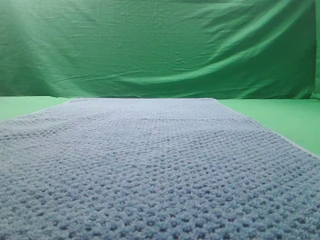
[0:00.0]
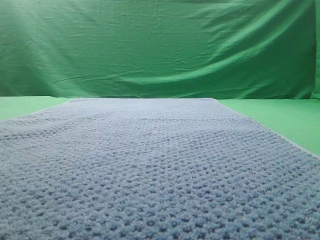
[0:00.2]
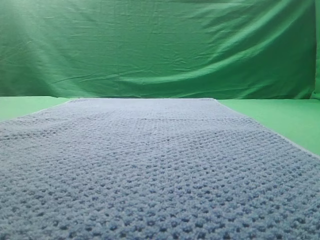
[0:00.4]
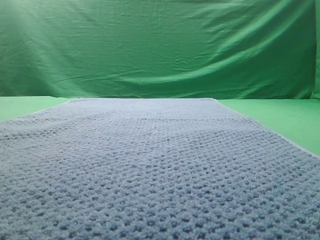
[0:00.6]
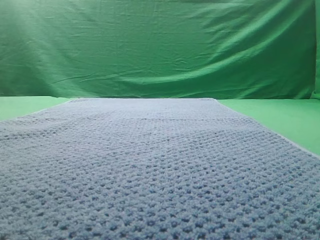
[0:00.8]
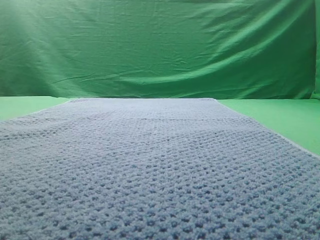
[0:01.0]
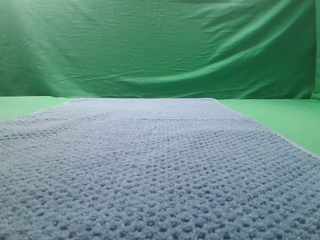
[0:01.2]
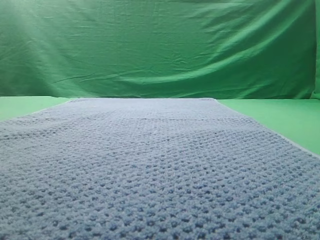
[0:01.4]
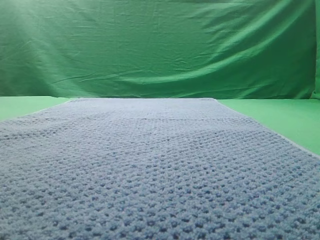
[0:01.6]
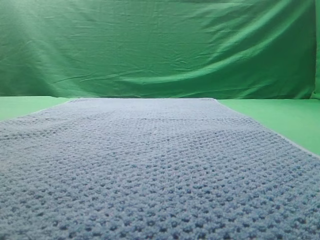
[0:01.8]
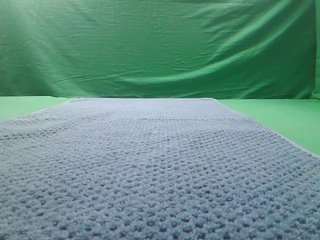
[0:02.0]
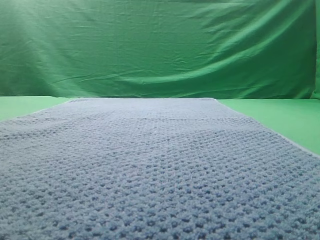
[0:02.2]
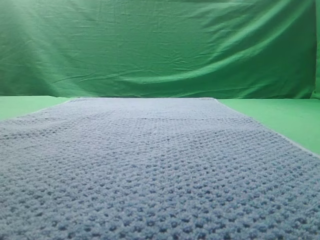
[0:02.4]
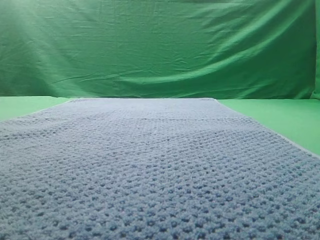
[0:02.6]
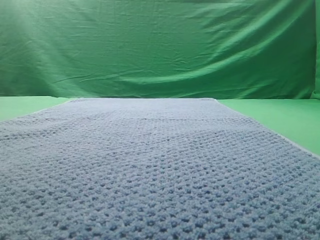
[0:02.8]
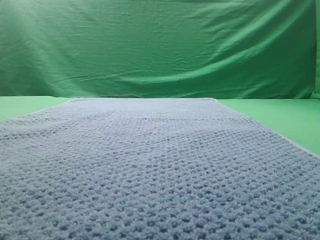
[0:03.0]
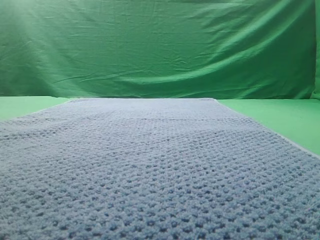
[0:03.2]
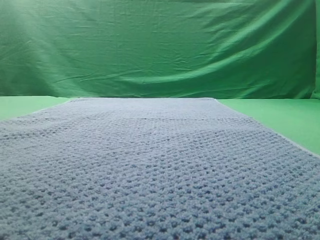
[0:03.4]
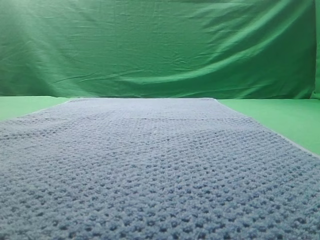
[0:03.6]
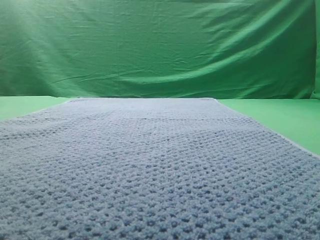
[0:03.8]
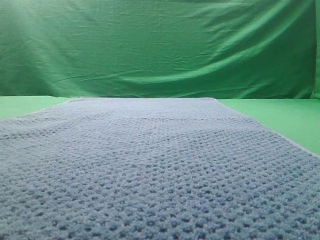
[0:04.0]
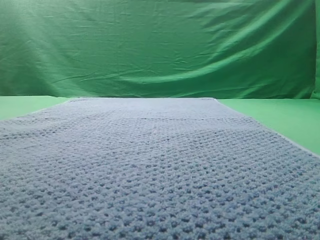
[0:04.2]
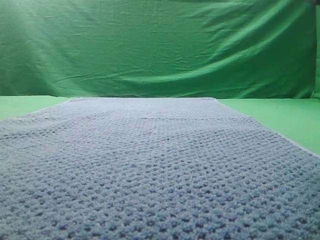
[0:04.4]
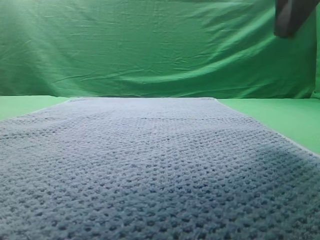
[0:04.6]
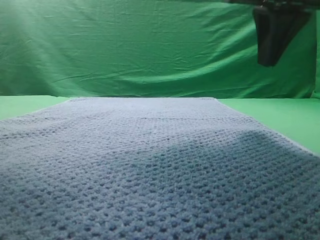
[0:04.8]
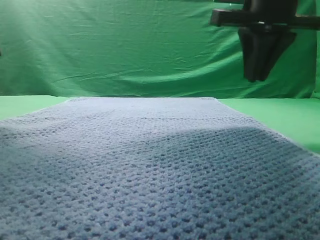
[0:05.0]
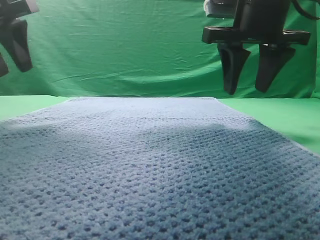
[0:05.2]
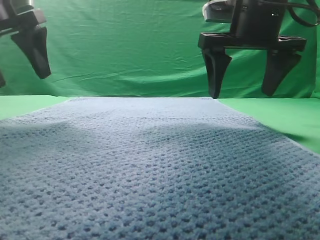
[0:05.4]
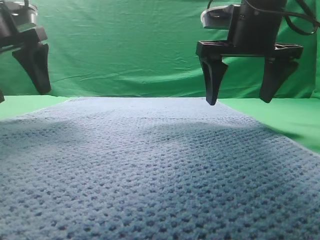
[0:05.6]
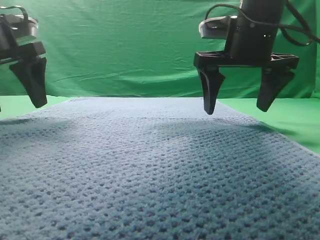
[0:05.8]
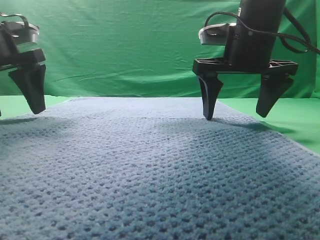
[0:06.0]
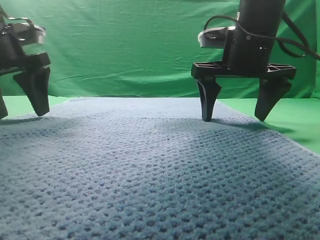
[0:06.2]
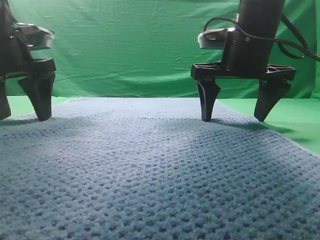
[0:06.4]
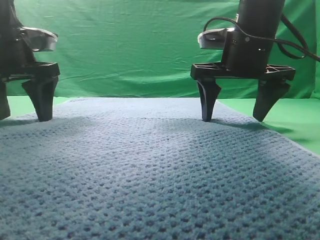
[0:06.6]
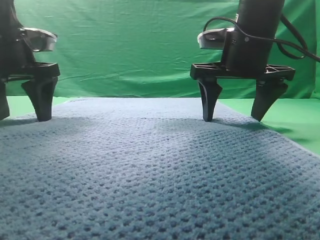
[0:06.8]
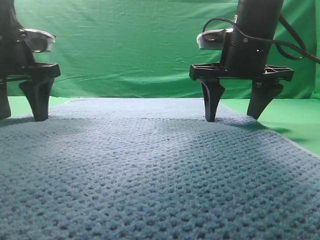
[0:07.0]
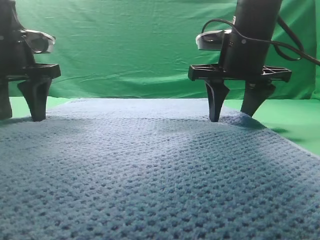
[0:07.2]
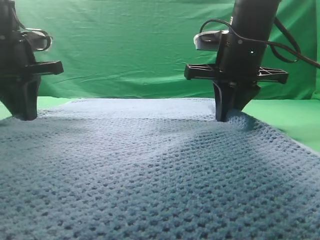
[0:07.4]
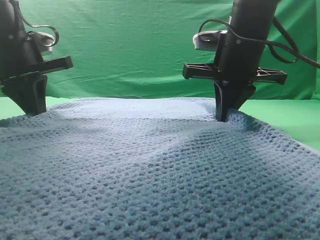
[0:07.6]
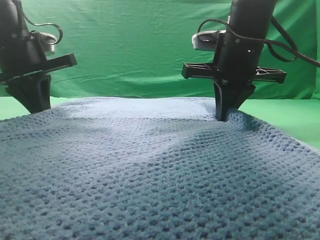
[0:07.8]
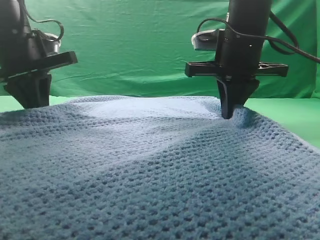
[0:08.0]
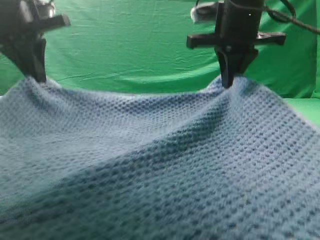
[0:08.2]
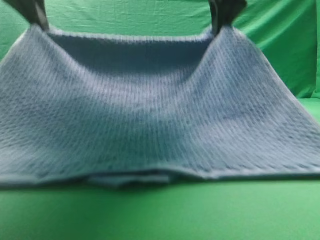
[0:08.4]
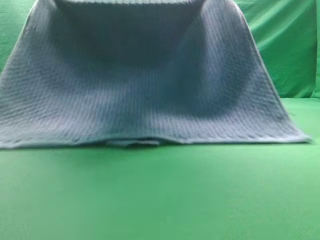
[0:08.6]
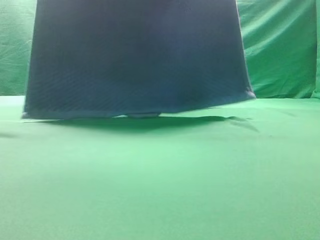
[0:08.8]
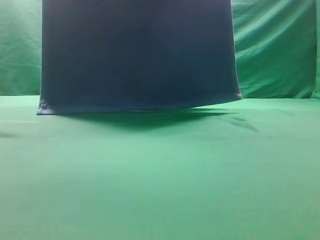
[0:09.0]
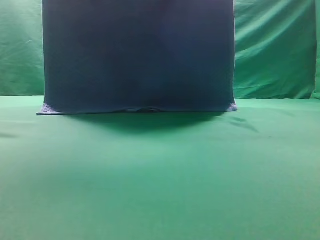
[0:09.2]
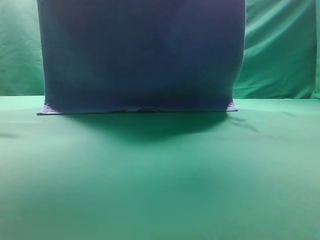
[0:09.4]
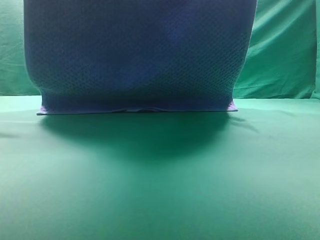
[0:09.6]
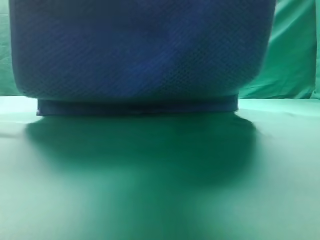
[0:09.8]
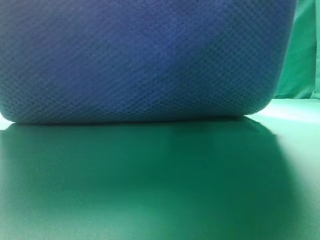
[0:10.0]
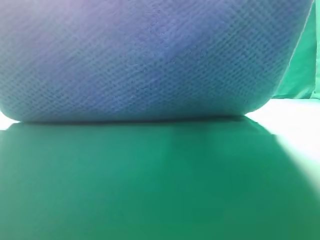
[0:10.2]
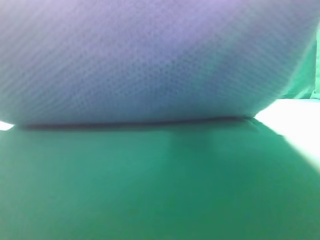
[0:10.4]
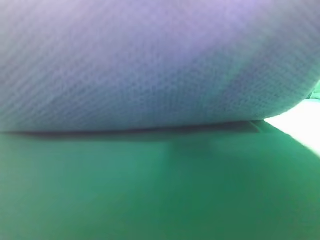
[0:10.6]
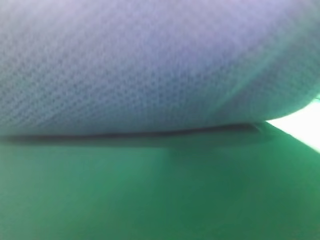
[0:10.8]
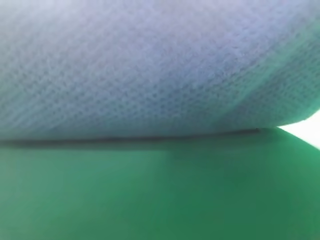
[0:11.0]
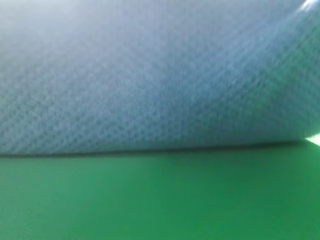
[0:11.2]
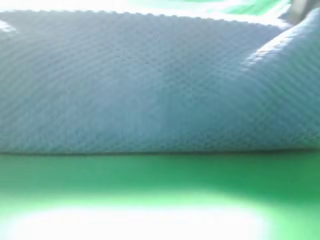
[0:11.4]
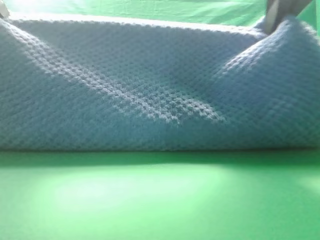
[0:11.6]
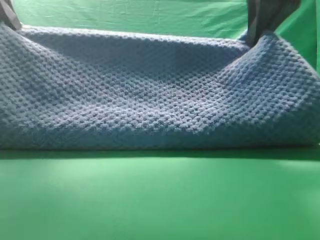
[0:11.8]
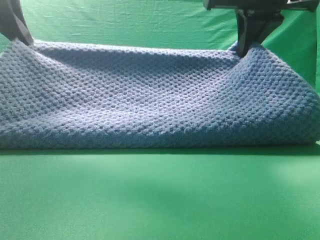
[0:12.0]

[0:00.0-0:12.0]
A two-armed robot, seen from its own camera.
Task of the whole recording: fold the towel on the table twice.
Step, 0:00.0 to 0:08.8: pick up the towel with two arm.

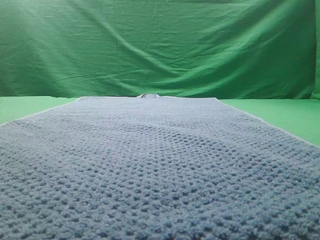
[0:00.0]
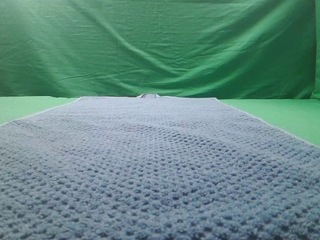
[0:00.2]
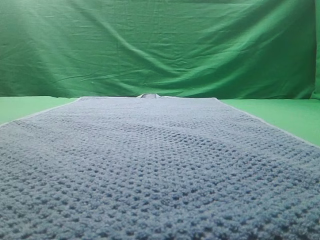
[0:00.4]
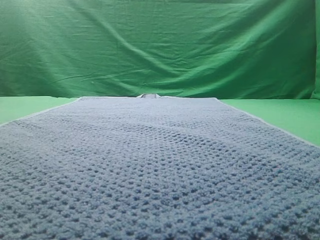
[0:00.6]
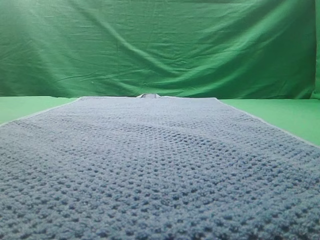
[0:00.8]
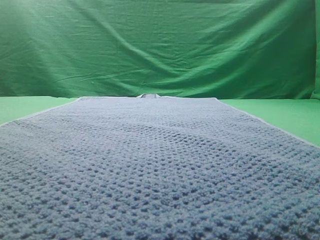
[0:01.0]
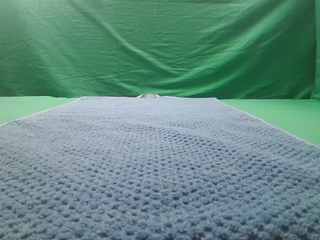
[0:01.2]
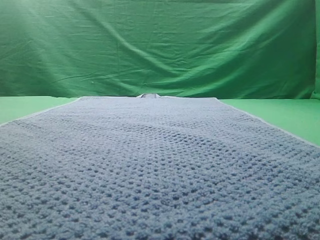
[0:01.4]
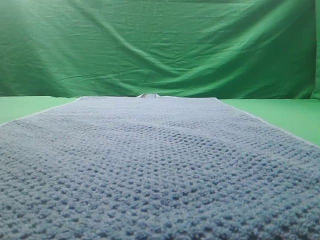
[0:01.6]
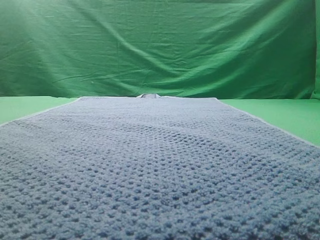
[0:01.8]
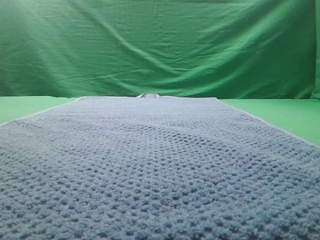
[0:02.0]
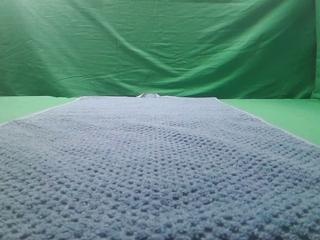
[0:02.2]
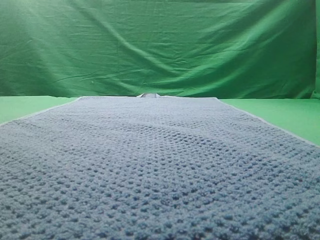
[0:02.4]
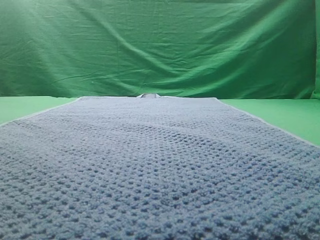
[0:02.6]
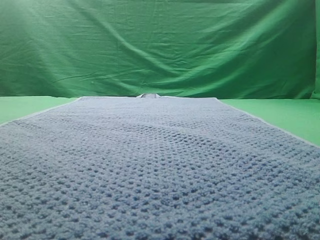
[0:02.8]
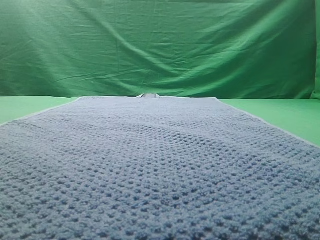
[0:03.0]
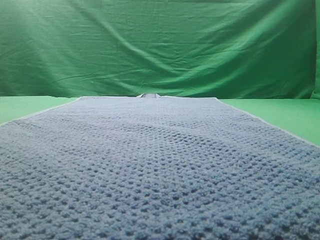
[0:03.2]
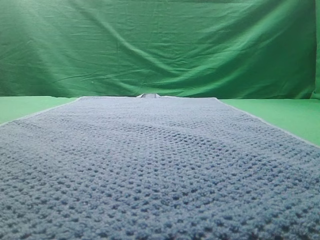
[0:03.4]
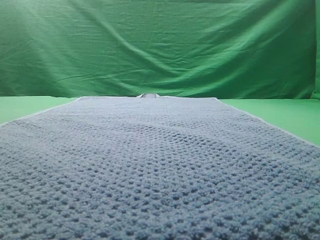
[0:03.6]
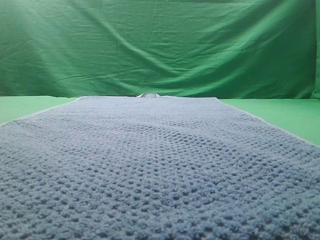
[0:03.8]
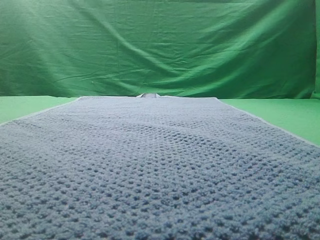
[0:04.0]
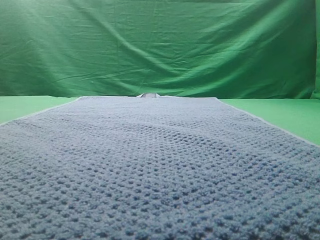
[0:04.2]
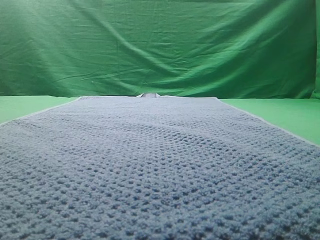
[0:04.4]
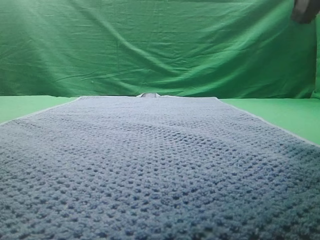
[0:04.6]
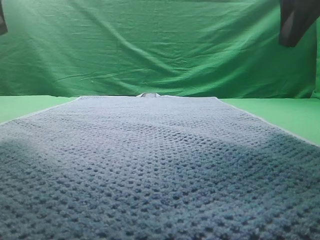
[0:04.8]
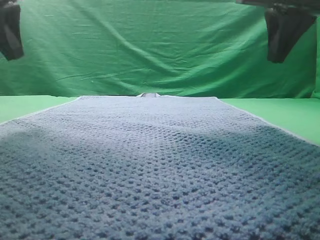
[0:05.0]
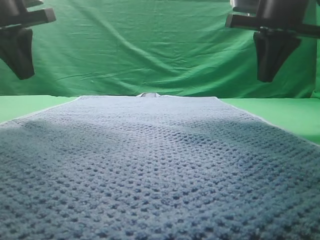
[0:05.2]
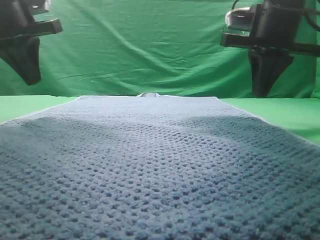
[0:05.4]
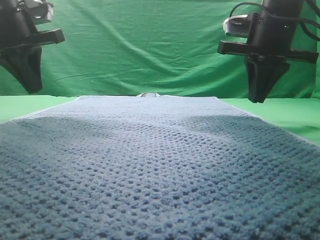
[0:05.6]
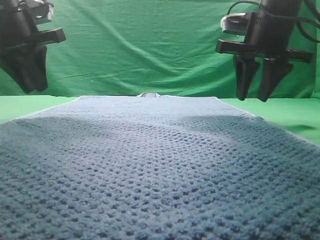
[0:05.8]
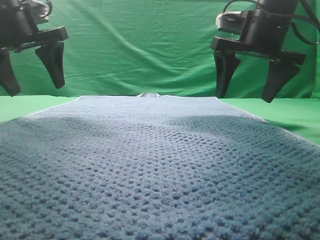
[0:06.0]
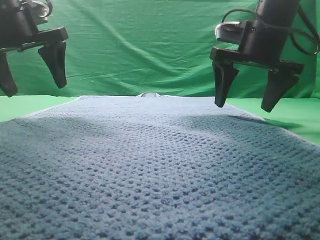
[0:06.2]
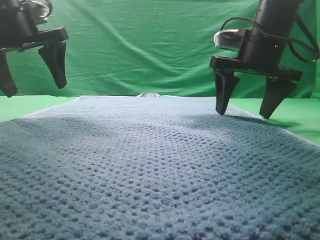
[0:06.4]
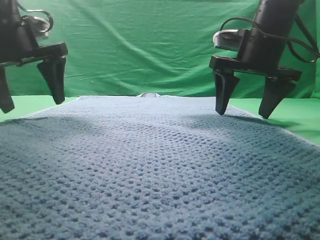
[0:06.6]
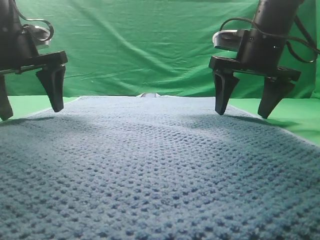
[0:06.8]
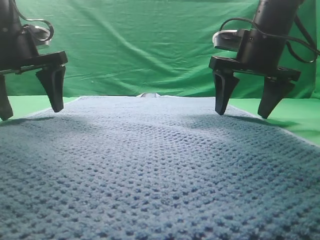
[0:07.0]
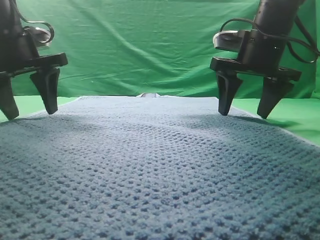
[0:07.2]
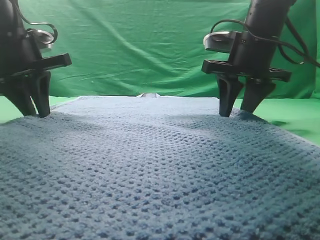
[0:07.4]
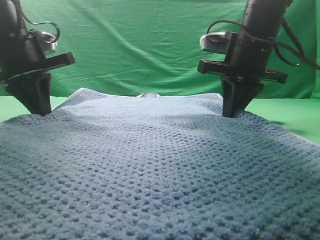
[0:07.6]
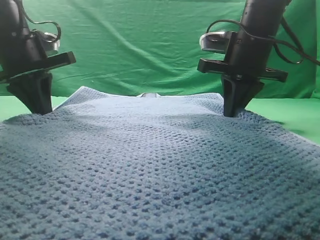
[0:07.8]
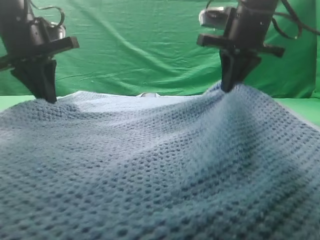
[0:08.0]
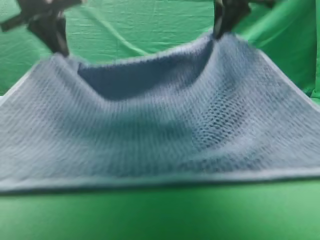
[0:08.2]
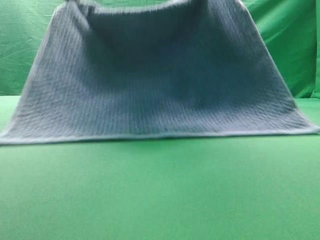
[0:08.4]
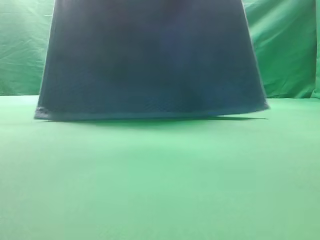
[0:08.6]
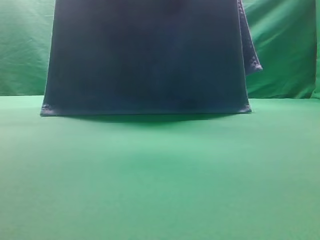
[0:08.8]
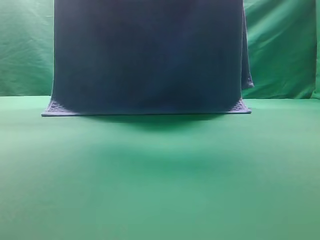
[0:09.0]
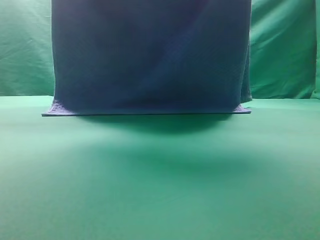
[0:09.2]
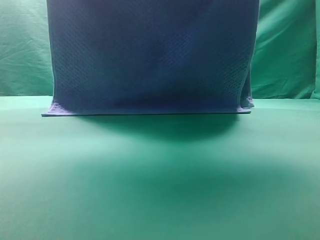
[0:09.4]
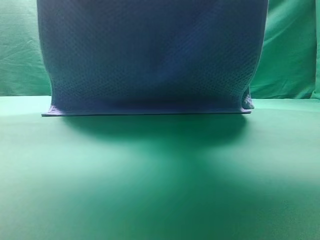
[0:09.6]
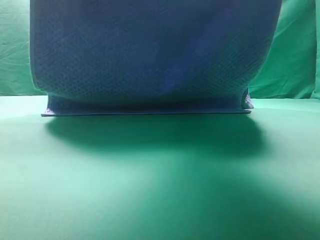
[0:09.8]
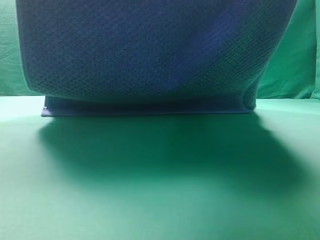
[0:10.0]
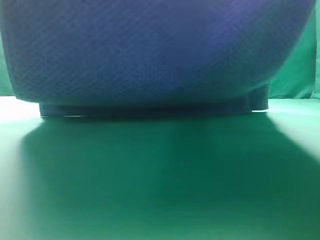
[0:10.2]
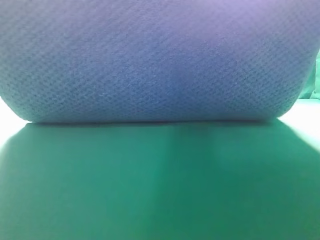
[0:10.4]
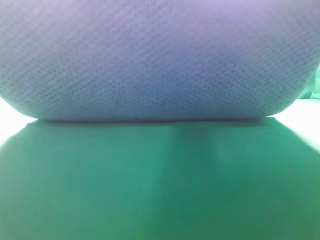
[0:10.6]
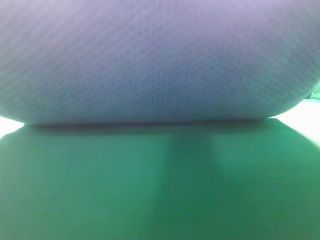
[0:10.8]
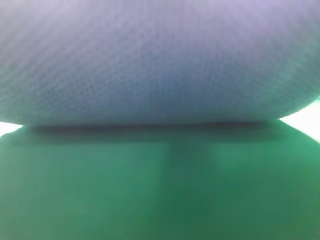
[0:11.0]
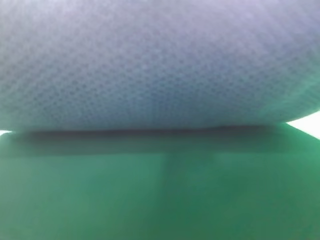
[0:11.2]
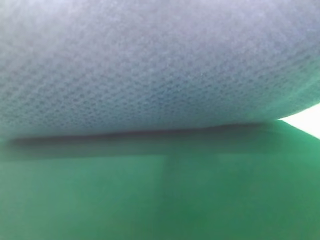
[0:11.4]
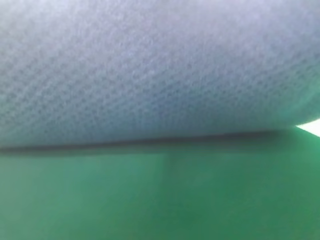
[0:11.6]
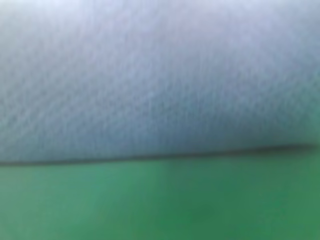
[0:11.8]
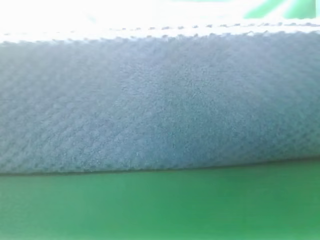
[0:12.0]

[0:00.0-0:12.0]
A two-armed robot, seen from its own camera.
Task of the whole recording: fold the towel on the table twice.
Step, 0:00.0 to 0:08.6: pick up the towel with two arm.
